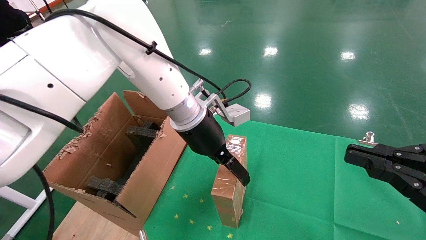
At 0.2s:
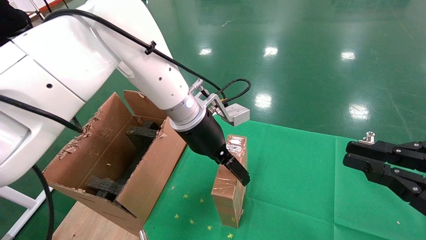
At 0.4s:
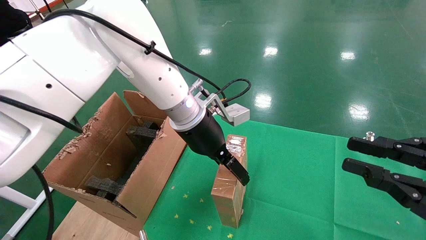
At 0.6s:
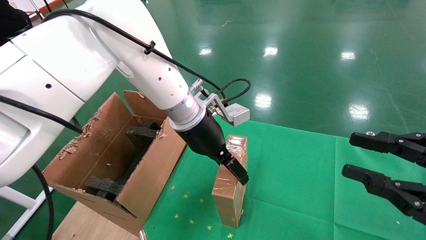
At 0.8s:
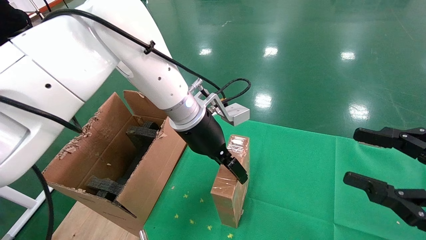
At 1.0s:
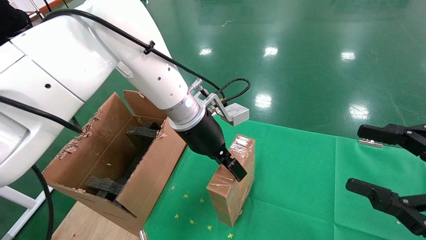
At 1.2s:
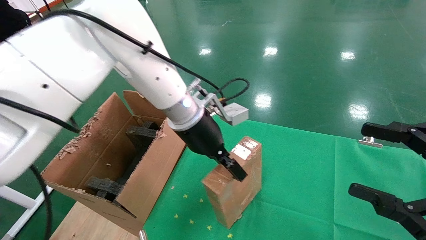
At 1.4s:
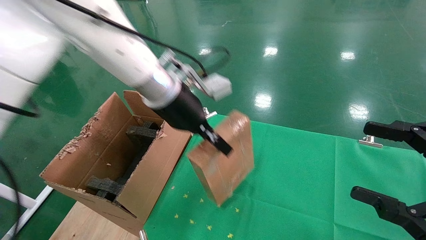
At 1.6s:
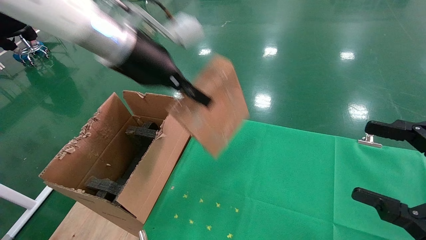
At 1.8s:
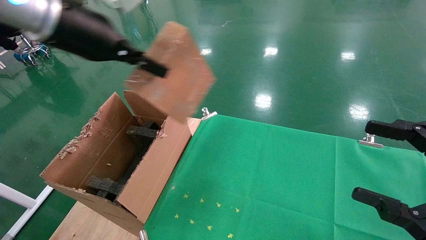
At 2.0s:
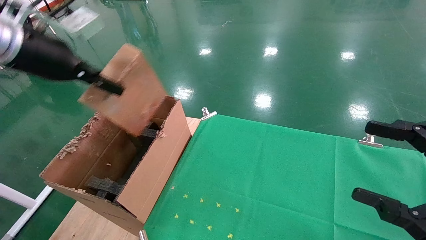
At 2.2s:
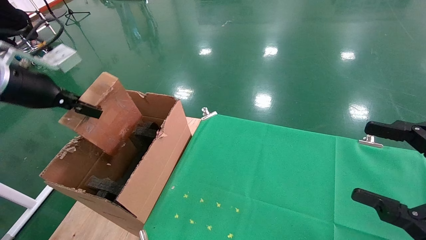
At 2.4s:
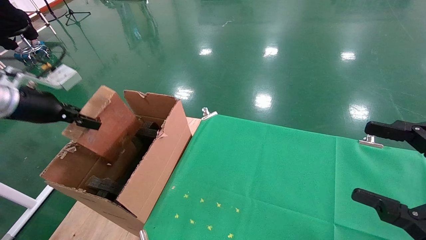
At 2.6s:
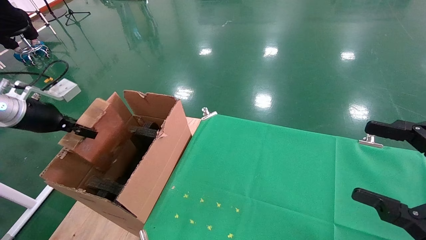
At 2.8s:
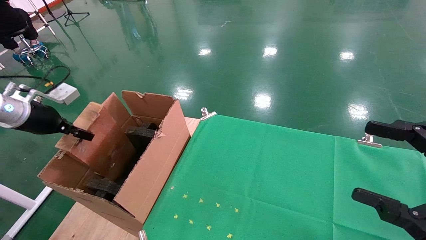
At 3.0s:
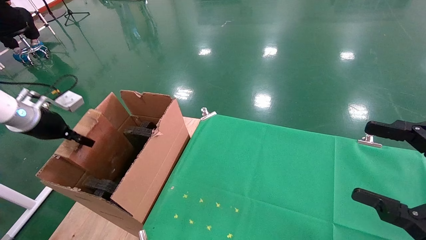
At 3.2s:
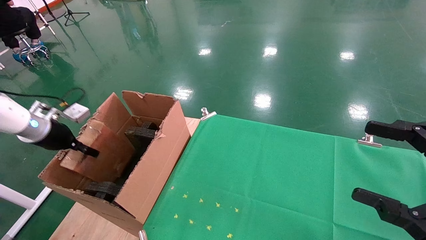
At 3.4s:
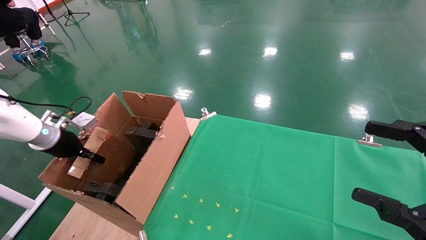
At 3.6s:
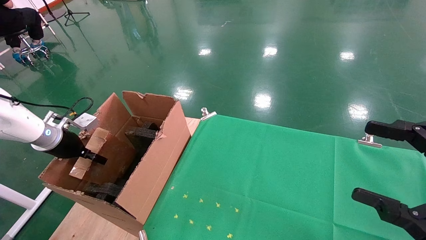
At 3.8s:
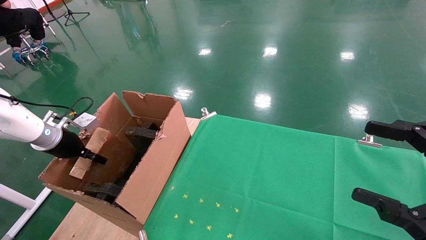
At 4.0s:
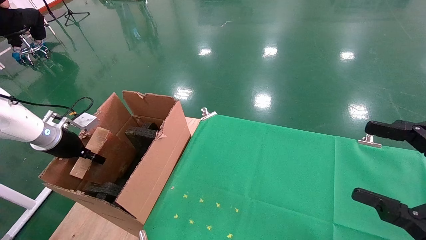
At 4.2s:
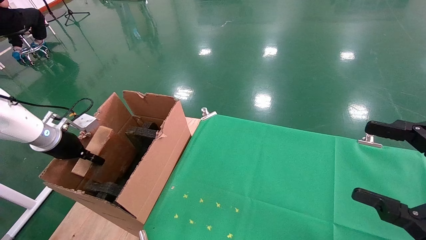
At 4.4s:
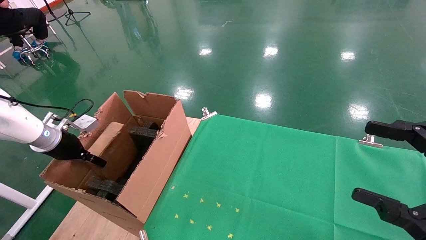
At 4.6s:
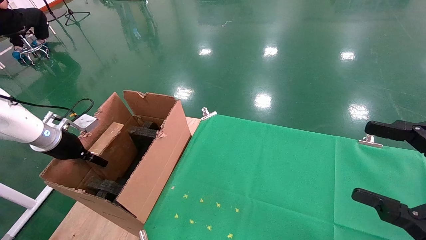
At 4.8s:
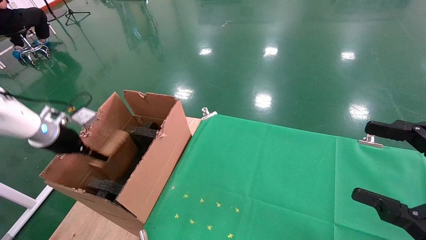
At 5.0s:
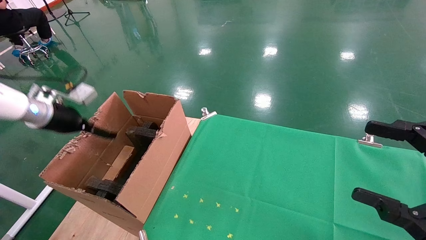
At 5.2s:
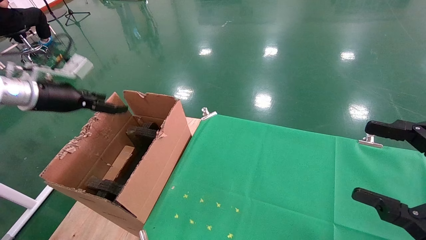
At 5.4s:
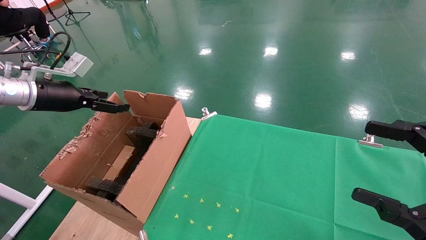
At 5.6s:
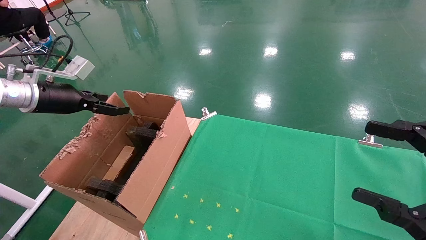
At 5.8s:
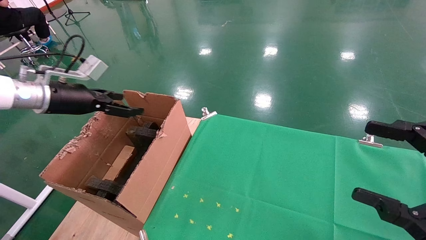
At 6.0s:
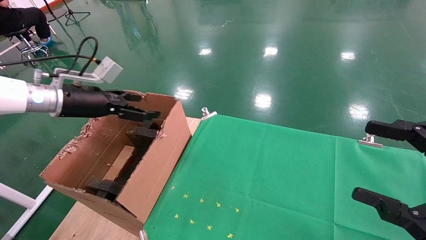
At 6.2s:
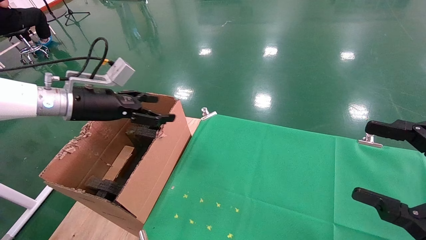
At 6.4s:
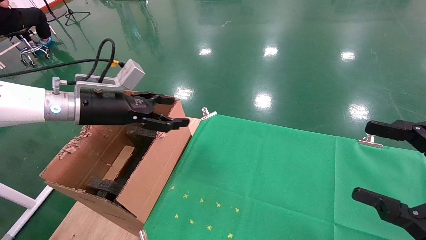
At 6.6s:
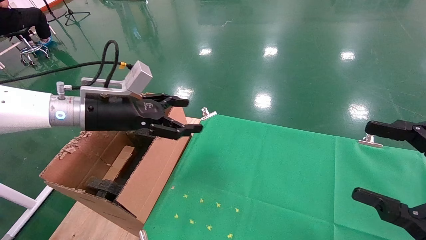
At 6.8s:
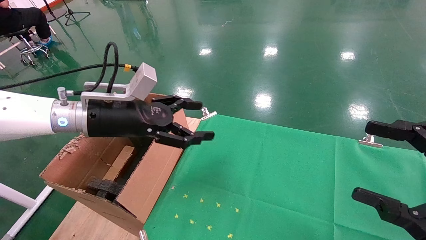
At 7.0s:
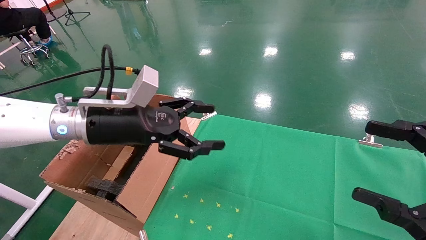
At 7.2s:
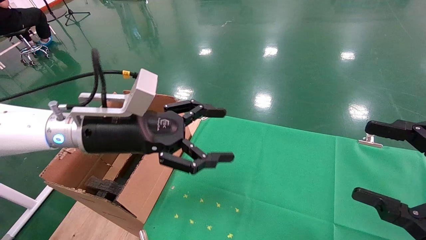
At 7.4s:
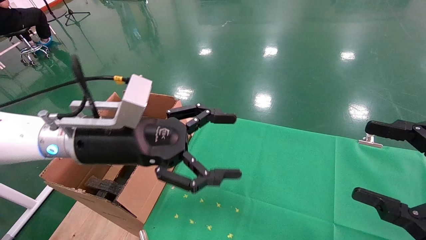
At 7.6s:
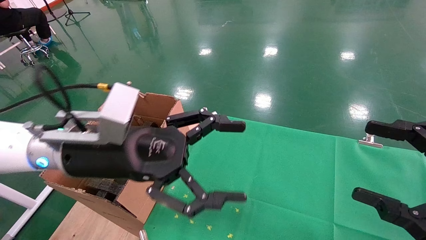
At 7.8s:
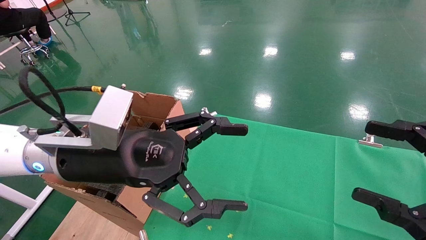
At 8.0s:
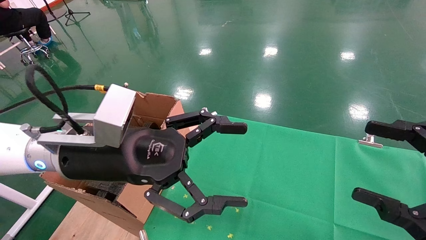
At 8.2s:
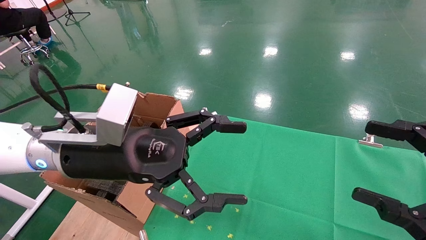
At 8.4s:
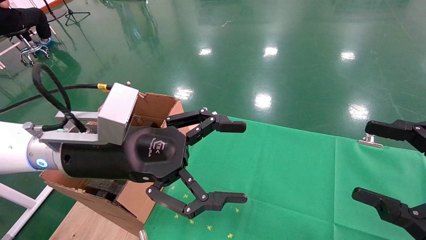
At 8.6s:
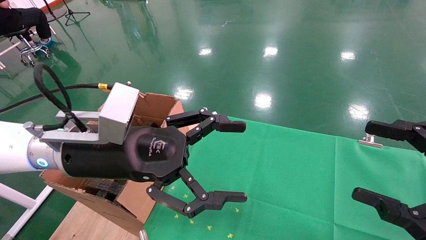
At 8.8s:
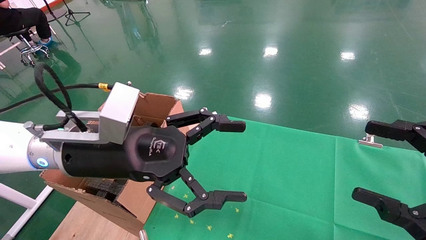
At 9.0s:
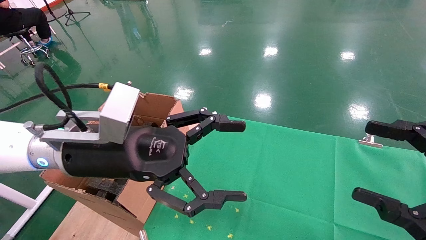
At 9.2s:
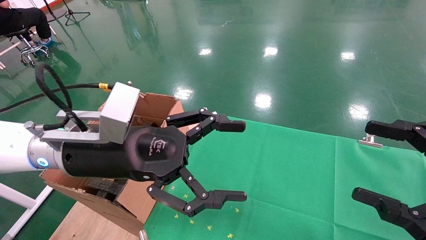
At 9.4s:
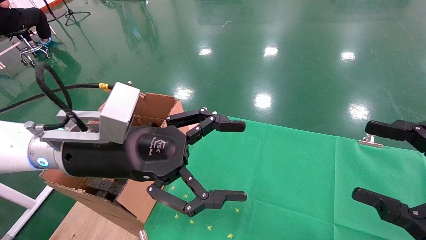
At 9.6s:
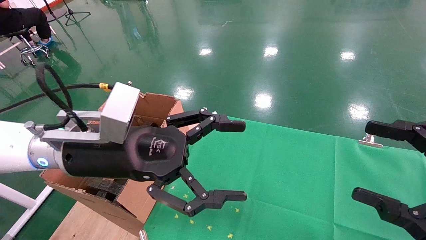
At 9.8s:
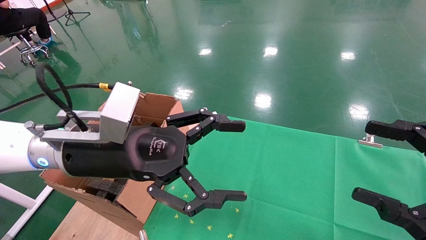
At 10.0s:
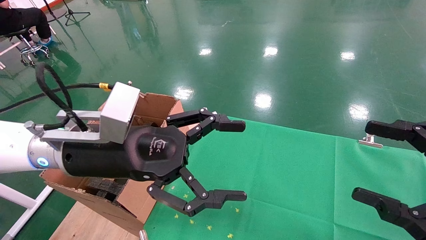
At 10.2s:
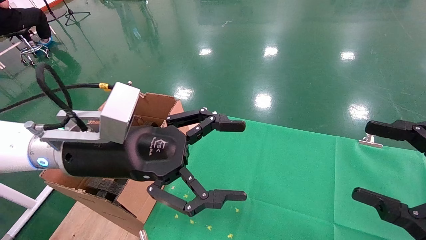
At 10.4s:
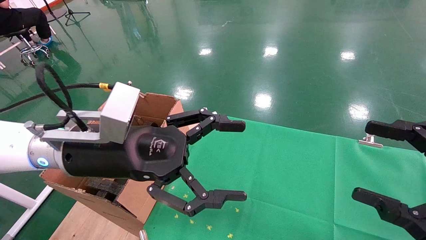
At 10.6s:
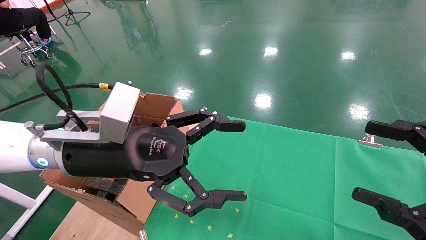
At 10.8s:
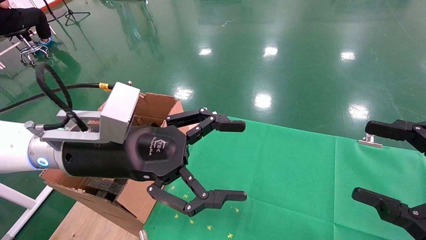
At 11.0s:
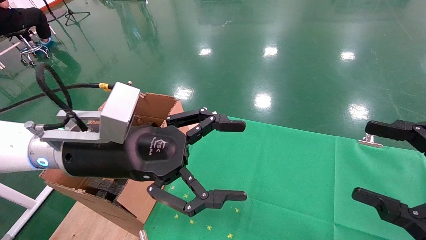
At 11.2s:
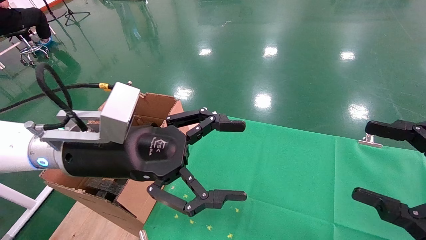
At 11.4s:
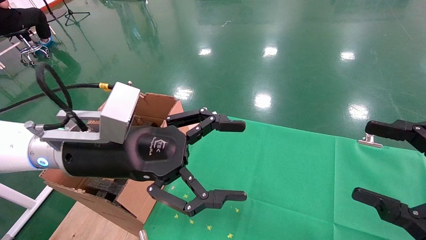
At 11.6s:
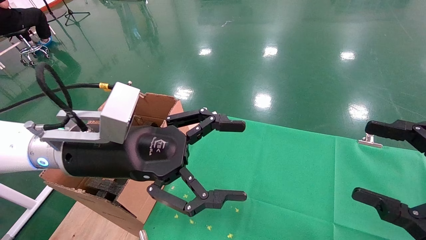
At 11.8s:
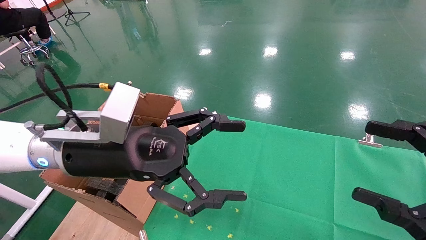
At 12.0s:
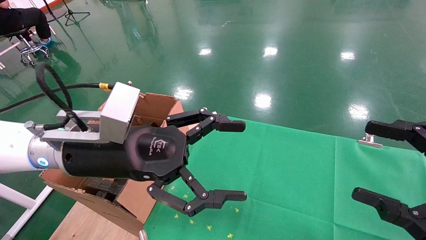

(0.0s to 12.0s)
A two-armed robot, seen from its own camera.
Task of the whole recording: using a robotic arm to pick up a cardboard box and palace it the carton.
Step, 1.4s - 5.4s: Place the mouse and the power cord paper box into the container.
0.0s - 1.6s: The left gripper travels upward, to the left and backward by some 15 cm, and closes up. The right gripper opens its fingers.
1.6s - 3.0s: The left gripper goes approximately 35 cm to the left and downward.
3.0s - 4.4s: The left gripper is displaced downward by some 5 cm.
4.4s - 6.0s: The left gripper is displaced upward and to the right by about 15 cm, and opens its fingers.
6.0s - 7.6s: The left gripper moves to the right and backward, some 20 cm.
7.6s - 12.0s: Both grippers stay about where they are.

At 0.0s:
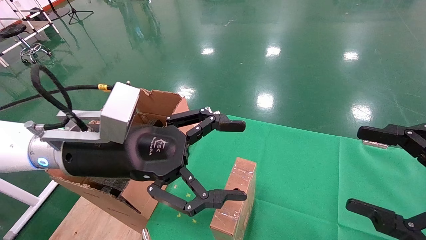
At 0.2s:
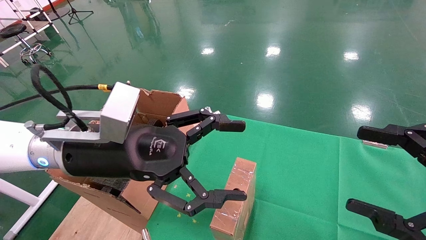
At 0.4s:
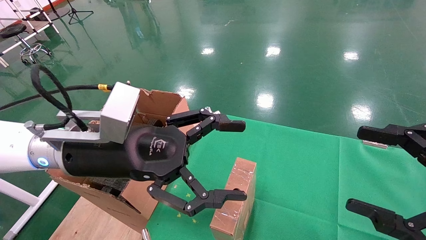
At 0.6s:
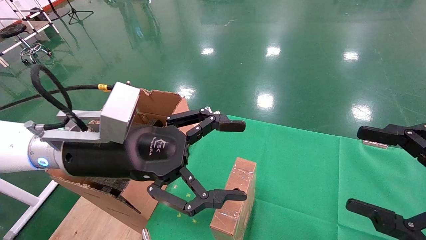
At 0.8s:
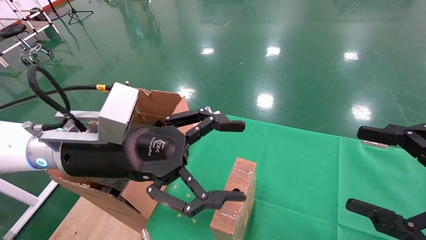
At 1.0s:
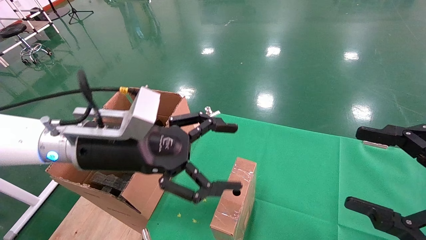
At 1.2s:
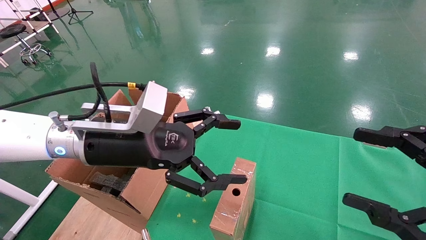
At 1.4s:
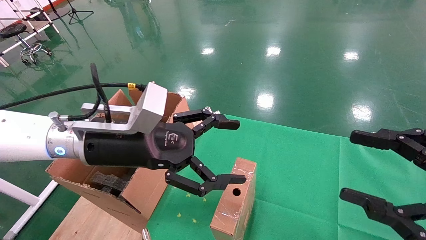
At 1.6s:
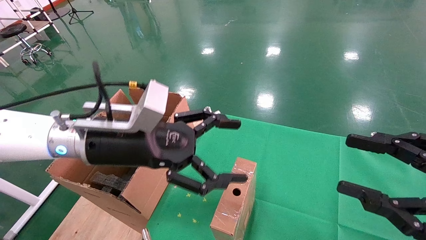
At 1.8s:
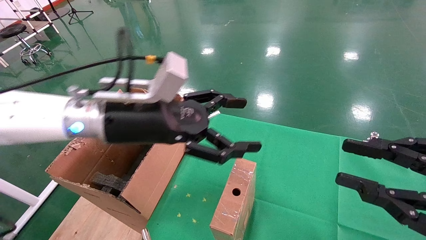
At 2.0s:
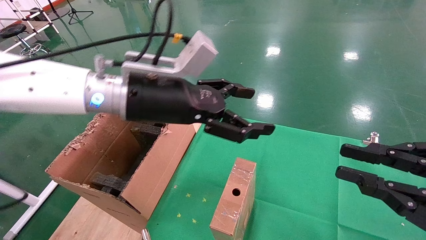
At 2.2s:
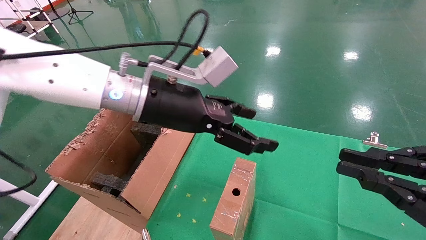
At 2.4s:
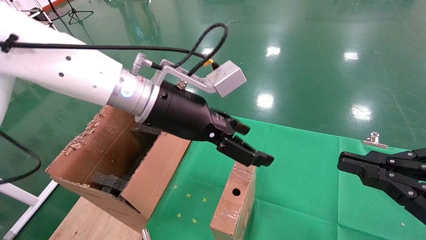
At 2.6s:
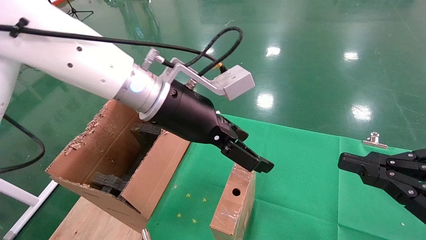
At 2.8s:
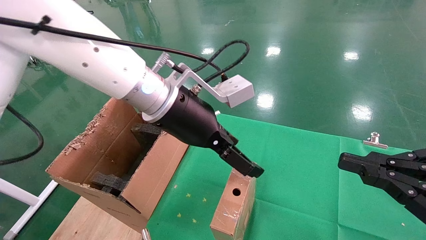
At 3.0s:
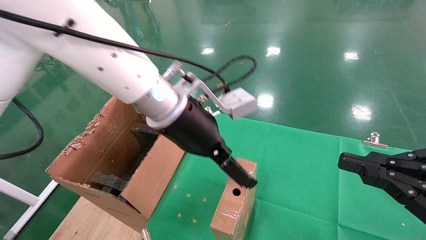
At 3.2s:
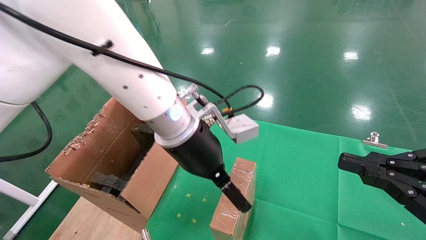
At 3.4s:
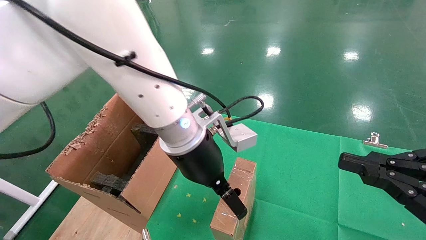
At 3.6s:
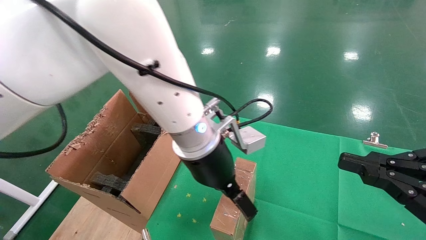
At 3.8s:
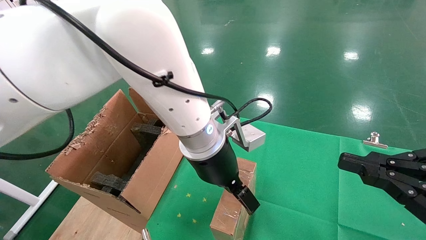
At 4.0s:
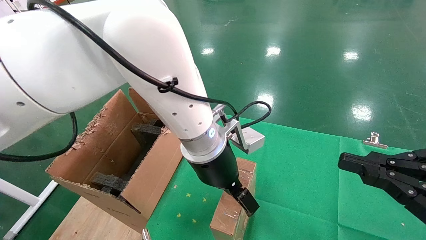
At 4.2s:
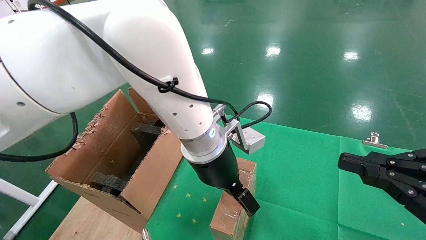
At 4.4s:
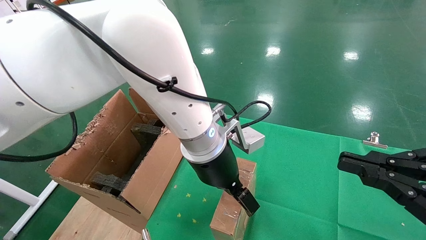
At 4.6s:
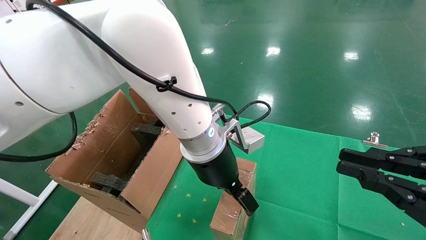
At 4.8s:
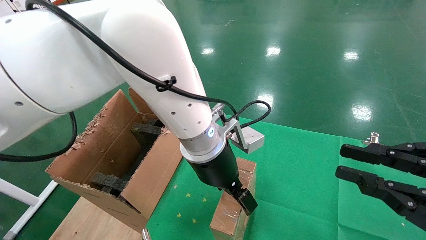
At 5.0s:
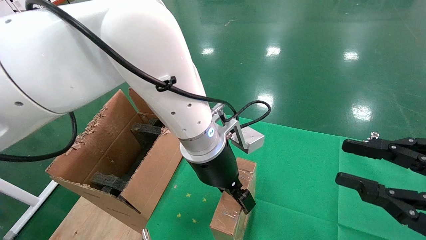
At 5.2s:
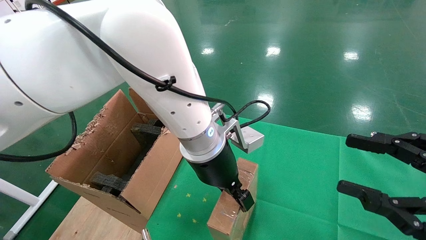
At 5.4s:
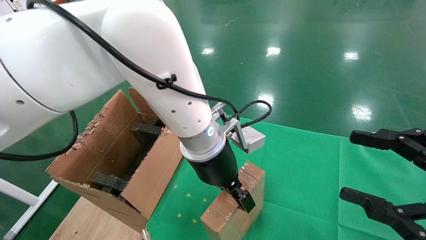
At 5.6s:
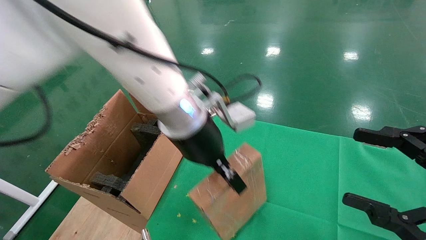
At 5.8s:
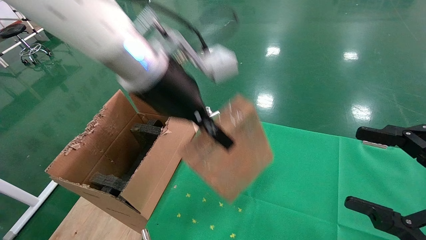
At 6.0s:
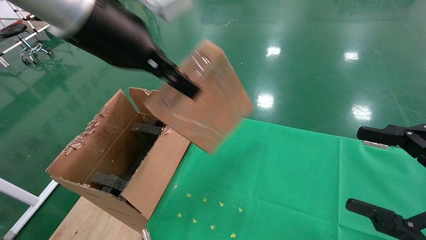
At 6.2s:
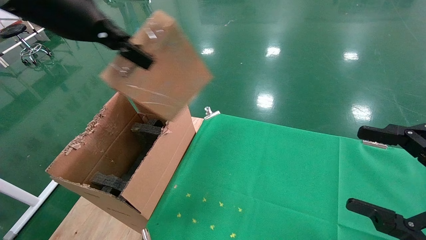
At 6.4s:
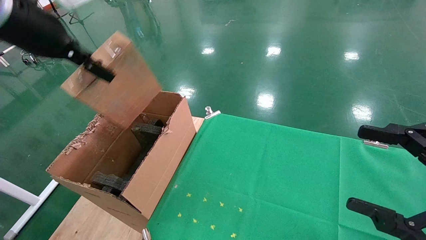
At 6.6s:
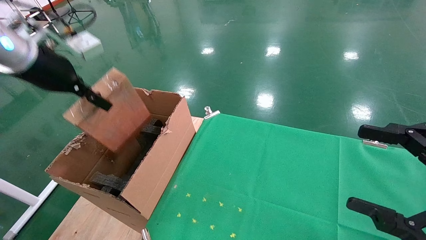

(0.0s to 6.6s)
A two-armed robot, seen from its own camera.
Task of the whole recording: using a robotic arm to pick up a cardboard box and palace it the carton.
Step, 1.2s - 5.2s: Pick up the mouse and the power cord paper box.
0.0s - 1.6s: The right gripper closes its fingers.
1.6s - 3.2s: The right gripper closes its fingers. Meanwhile the left gripper is displaced to the right by some 10 cm.
5.0s - 6.6s: The right gripper opens its fingers, while the left gripper goes roughly 35 cm to the left and upward, and closes.
